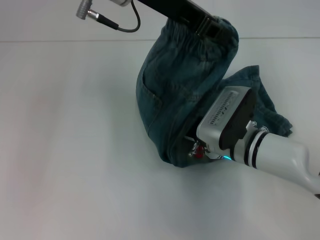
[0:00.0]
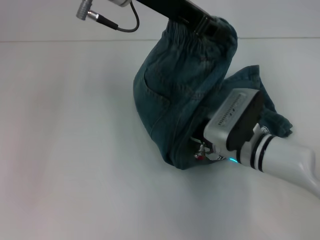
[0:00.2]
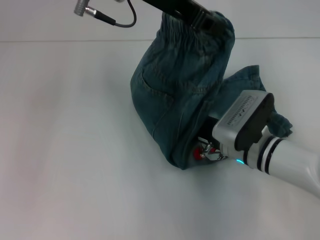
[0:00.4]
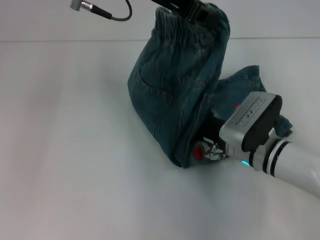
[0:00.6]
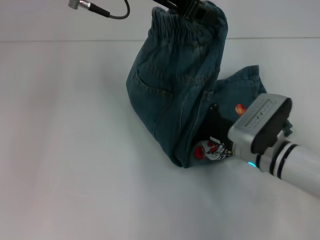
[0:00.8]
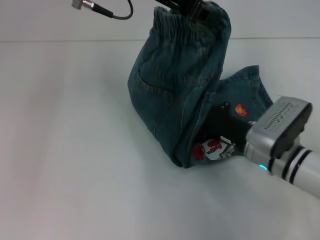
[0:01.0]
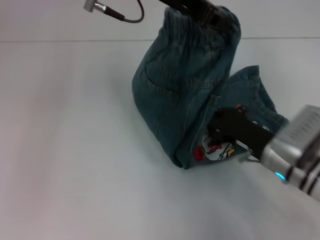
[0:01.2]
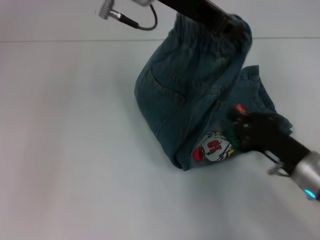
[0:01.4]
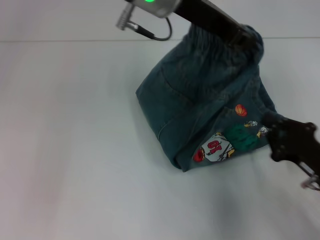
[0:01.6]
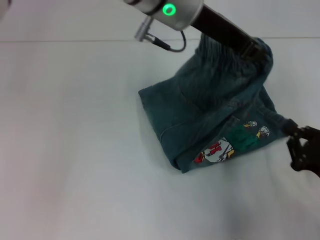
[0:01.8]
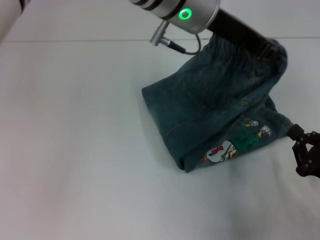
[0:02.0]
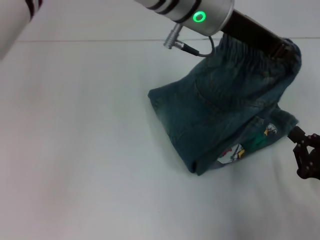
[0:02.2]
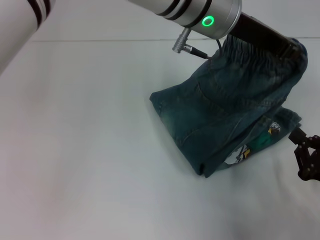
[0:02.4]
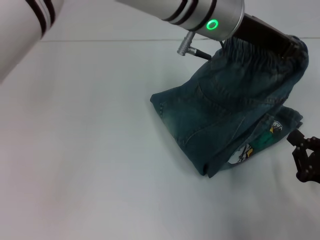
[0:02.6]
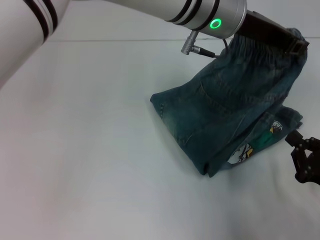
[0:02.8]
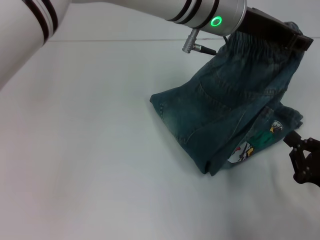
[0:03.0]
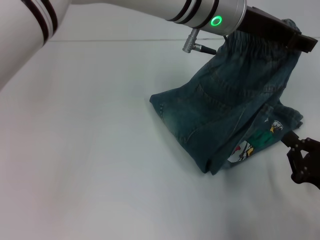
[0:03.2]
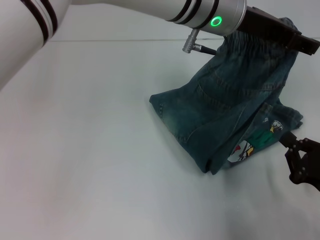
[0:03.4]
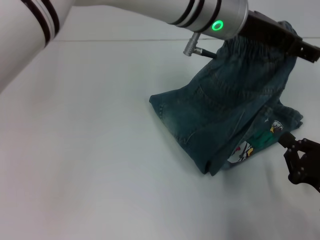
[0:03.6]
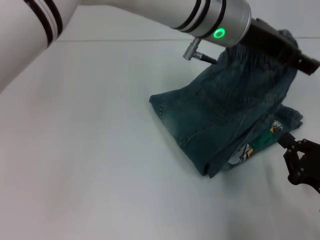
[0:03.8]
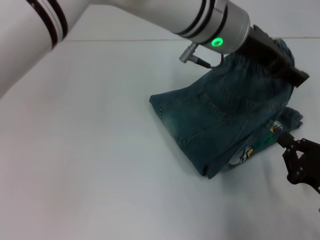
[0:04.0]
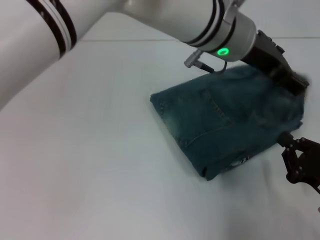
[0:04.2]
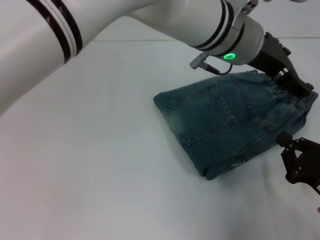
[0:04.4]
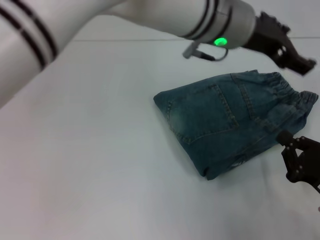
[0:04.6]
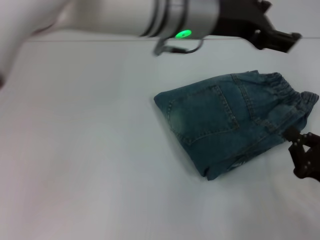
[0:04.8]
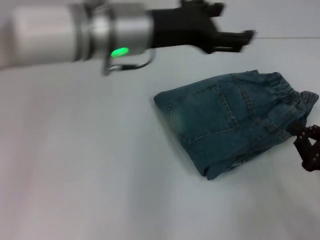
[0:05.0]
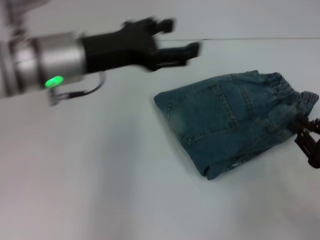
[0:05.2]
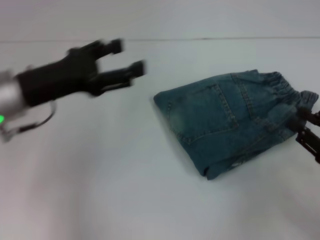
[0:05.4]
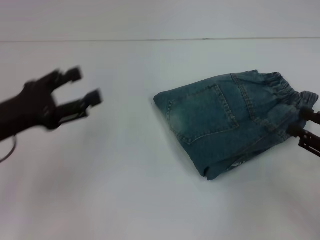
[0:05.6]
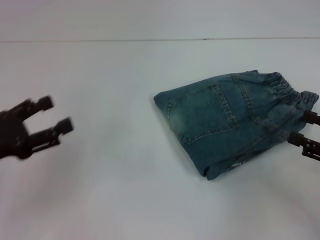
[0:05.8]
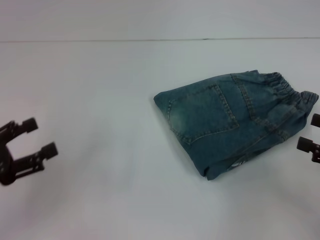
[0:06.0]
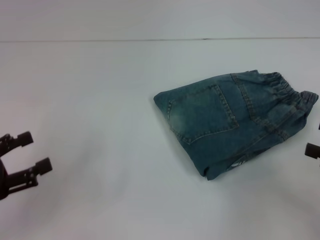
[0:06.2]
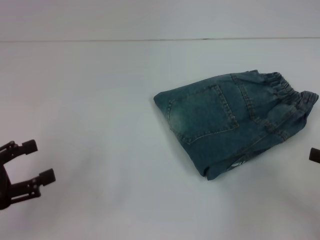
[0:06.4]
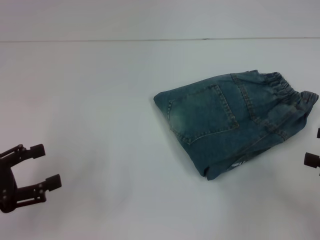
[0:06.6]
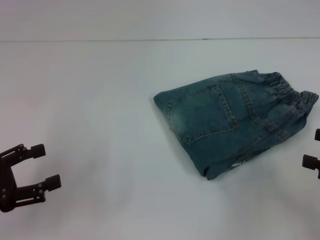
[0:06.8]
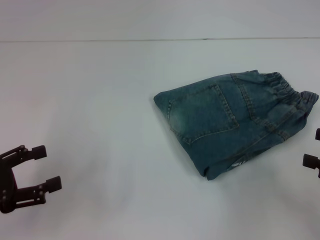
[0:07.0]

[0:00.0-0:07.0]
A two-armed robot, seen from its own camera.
Step, 0:01.0 to 0:04.2: Fold to the right with your left hand.
0:00.0 to 0:01.4: The right gripper is displaced to the right and backward by some 15 cm.
0:01.4 to 0:02.8: The left gripper moves to the right and downward, about 10 cm. The right gripper is displaced backward and to the right by approximately 10 cm.
0:02.8 to 0:04.2: The left gripper opens up.
0:04.2 to 0:05.6: The left gripper moves to the left, about 35 cm, while the right gripper is displaced upward and to the right by roughly 10 cm, and opens.
0:05.6 to 0:07.0: The left gripper goes approximately 10 cm backward and to the left; the right gripper opens its fingers.
